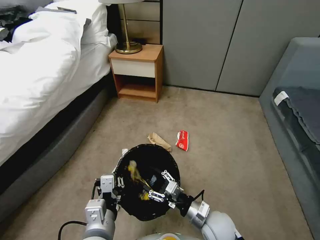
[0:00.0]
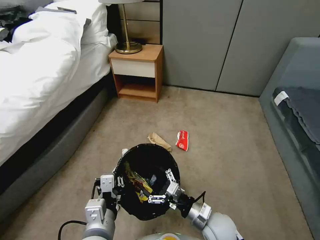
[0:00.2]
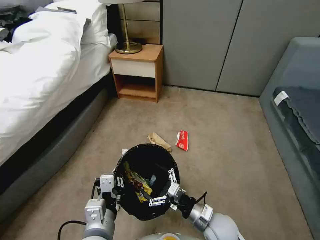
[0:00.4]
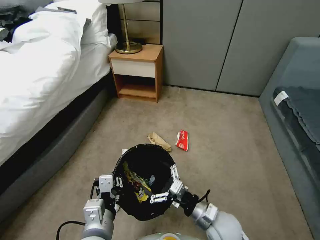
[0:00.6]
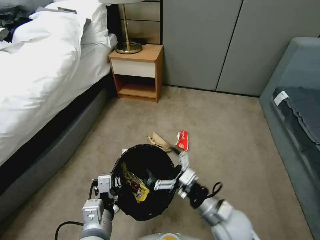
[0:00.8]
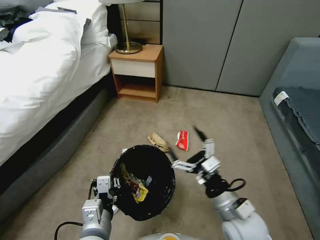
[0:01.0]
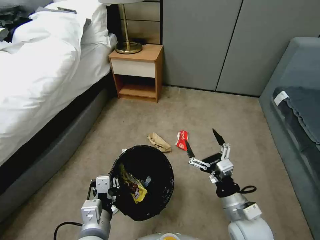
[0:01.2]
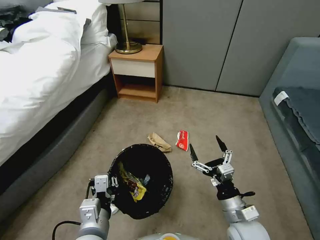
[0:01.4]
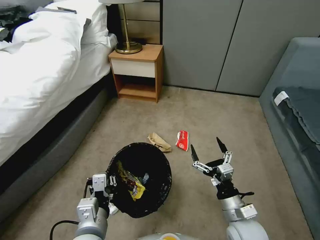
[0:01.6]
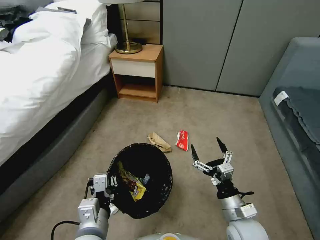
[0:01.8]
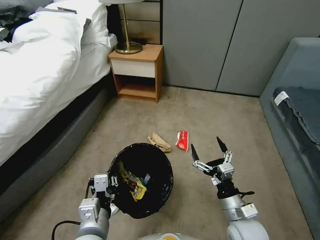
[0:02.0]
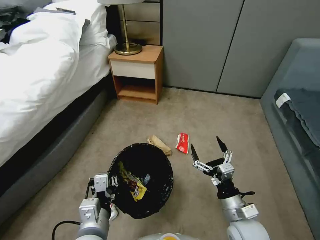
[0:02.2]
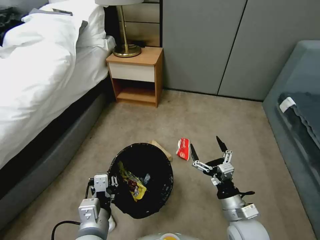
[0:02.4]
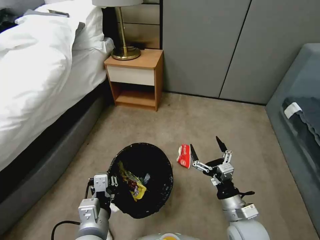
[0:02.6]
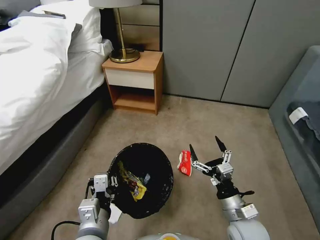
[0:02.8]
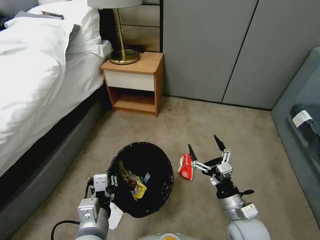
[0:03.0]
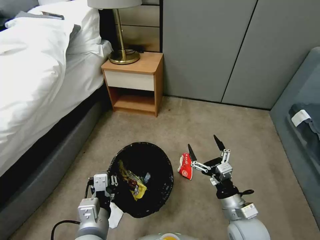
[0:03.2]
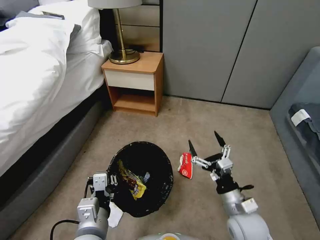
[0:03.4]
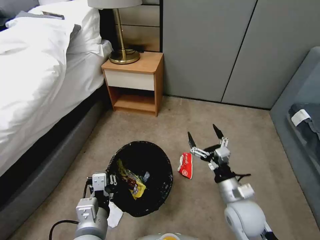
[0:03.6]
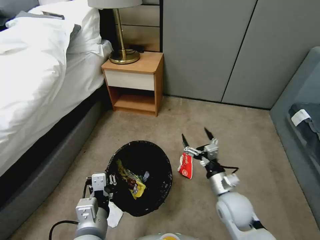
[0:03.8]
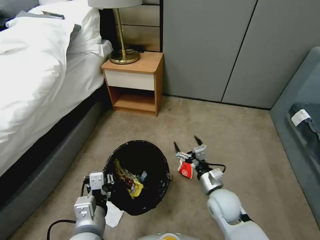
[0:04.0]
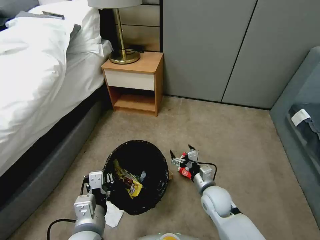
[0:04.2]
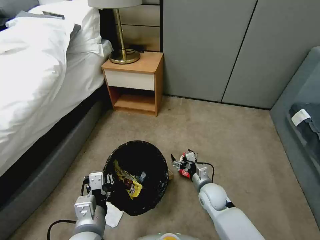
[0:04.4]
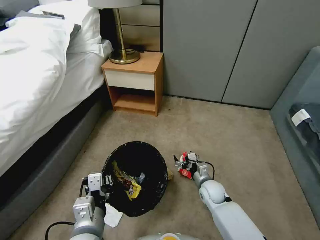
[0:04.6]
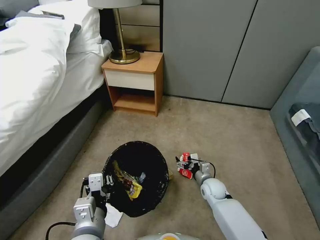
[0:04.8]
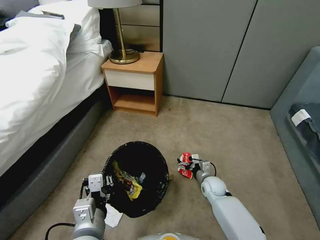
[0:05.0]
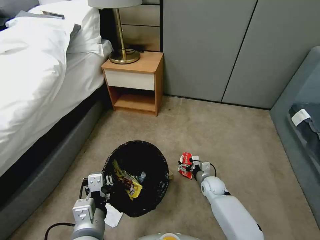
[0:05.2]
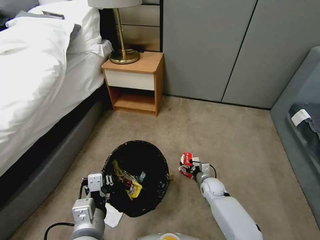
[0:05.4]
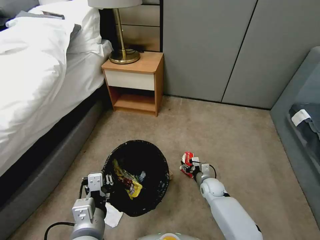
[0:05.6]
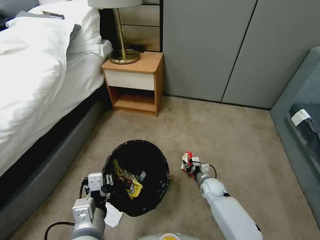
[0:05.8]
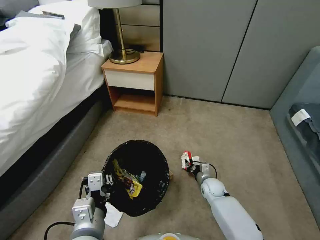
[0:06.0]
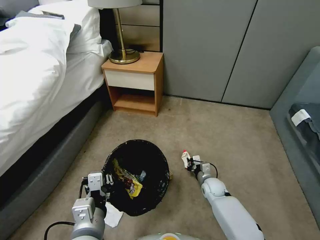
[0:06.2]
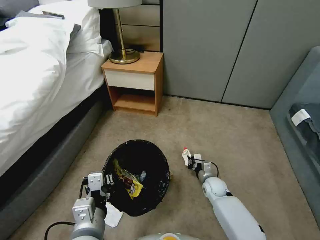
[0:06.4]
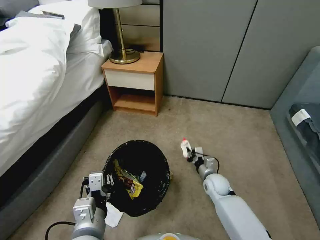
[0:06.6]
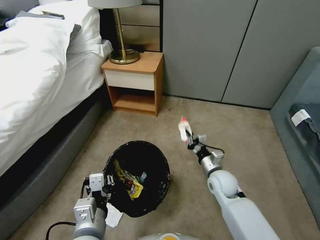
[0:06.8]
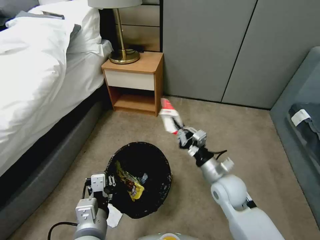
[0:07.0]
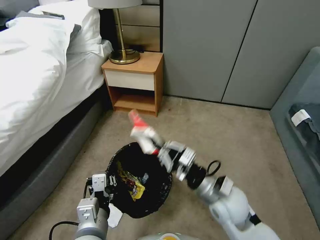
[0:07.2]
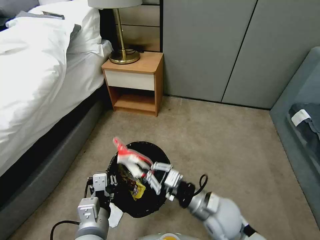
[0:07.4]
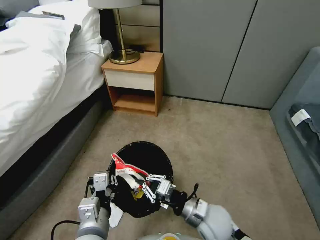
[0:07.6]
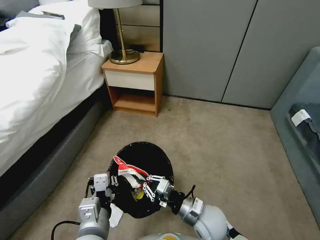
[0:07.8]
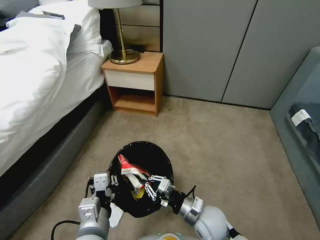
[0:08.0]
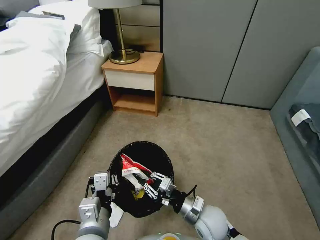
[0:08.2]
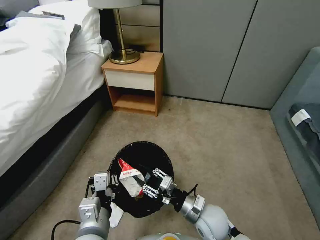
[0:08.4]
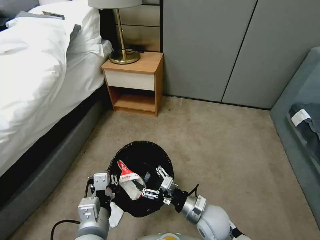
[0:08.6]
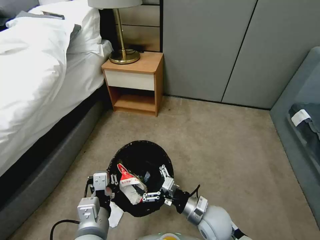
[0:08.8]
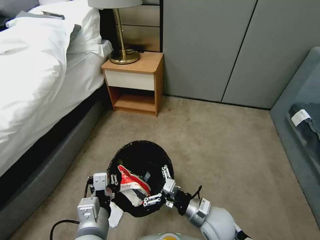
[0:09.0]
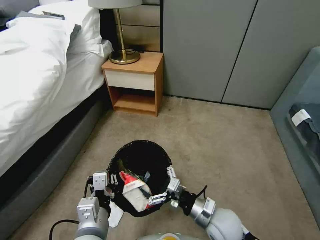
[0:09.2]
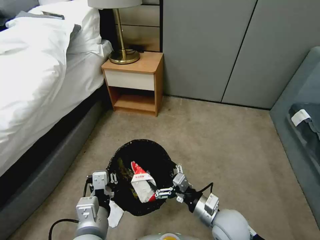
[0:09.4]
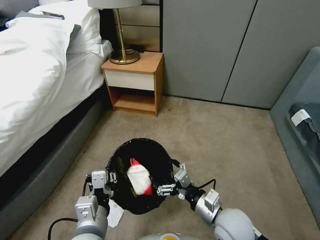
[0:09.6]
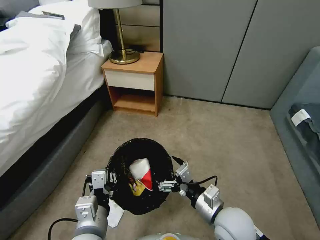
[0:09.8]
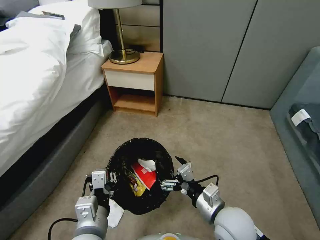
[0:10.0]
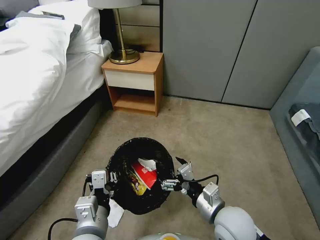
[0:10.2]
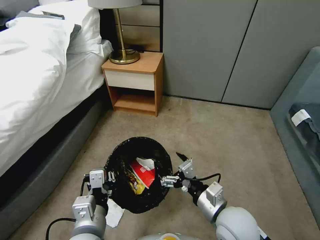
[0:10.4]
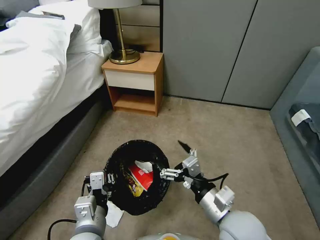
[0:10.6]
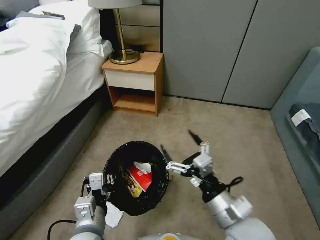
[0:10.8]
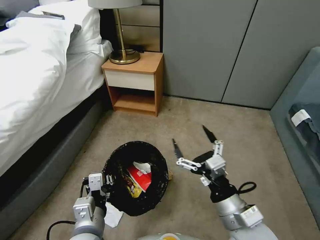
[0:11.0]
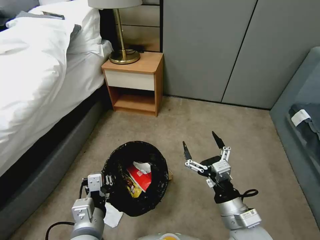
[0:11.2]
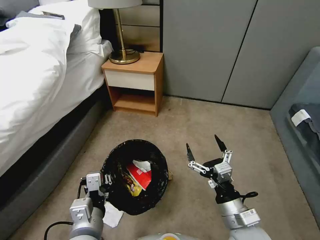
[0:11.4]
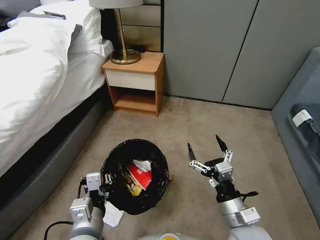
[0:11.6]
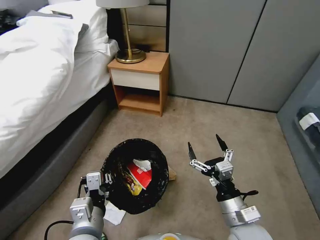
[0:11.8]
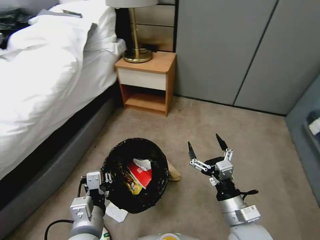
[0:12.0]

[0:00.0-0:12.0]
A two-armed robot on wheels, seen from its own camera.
Task of the whole recording: Pick up the trash bin, then pick up the garbage from the floor and place it into the trash bin.
0:00.0 to 0:01.6: The right gripper heads to the right, covering roughly 5 cm, and opens.
0:03.0 to 0:04.4: The right gripper travels forward and downward by some 15 cm.
0:04.4 to 0:06.0: The right gripper goes roughly 5 cm downward, and closes.
0:06.0 to 0:07.6: The right gripper moves upward, backward and to the left, approximately 25 cm.
0:07.6 to 0:09.0: The right gripper opens up.
0:09.0 to 0:10.4: The right gripper is displaced upward by approximately 10 cm.

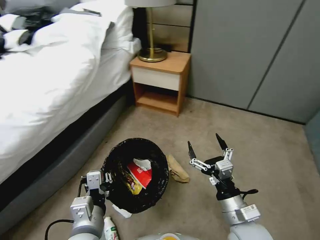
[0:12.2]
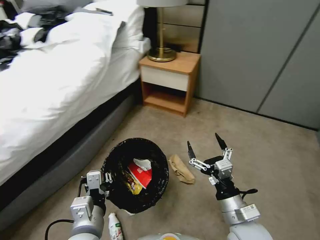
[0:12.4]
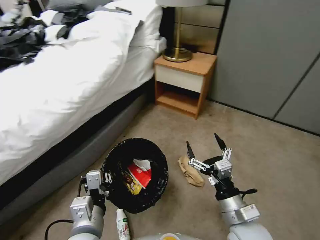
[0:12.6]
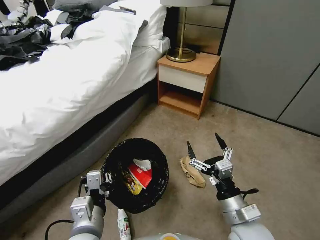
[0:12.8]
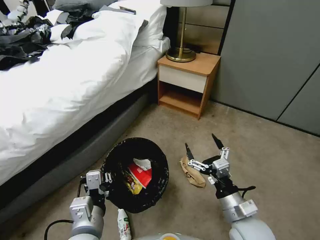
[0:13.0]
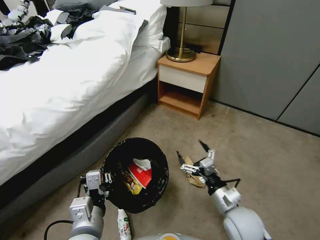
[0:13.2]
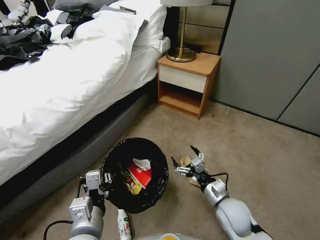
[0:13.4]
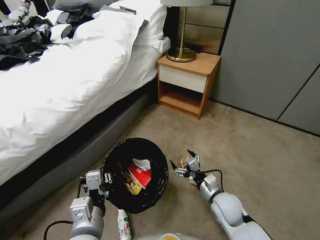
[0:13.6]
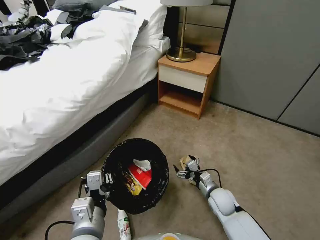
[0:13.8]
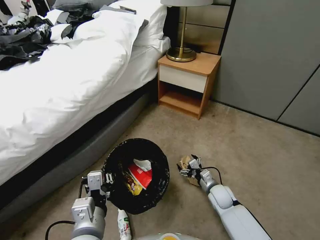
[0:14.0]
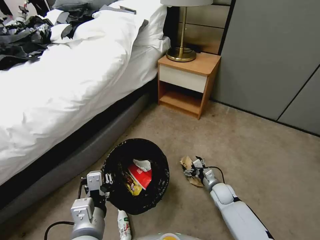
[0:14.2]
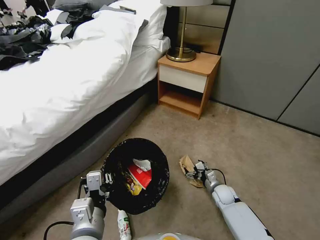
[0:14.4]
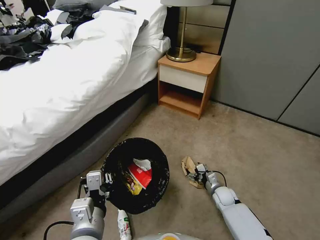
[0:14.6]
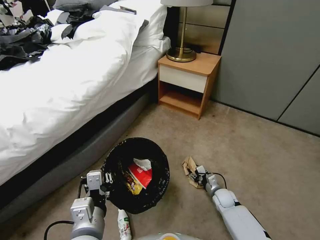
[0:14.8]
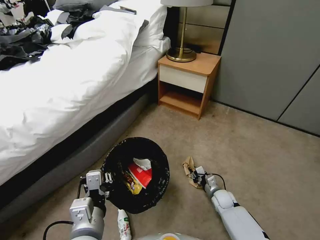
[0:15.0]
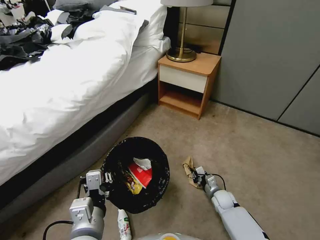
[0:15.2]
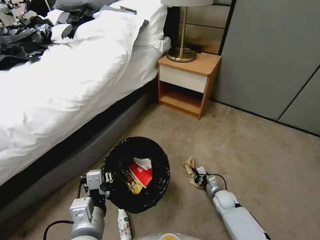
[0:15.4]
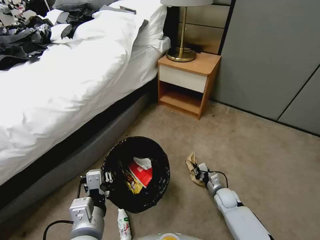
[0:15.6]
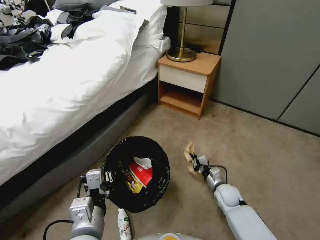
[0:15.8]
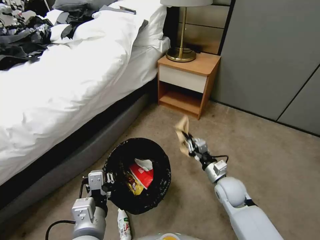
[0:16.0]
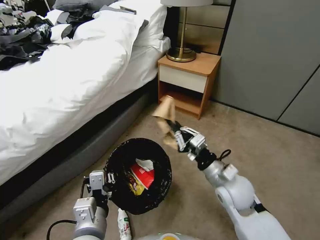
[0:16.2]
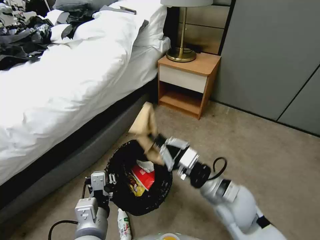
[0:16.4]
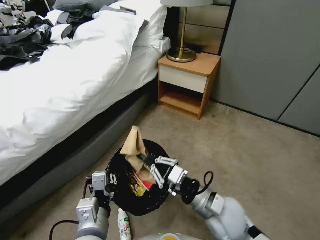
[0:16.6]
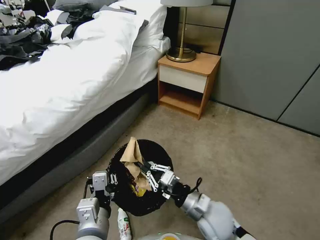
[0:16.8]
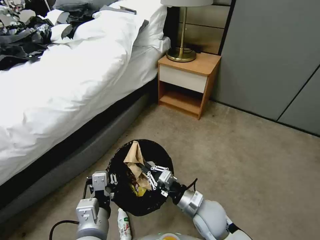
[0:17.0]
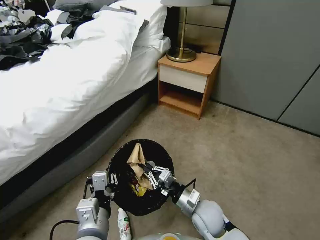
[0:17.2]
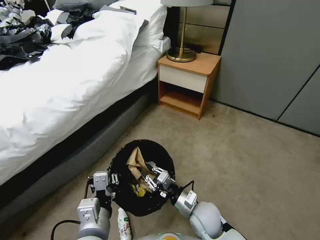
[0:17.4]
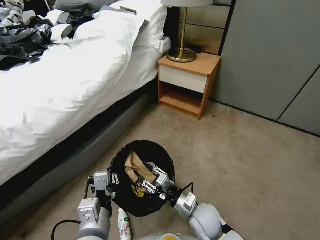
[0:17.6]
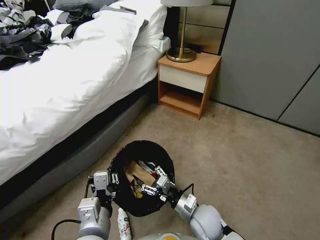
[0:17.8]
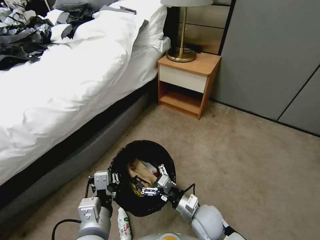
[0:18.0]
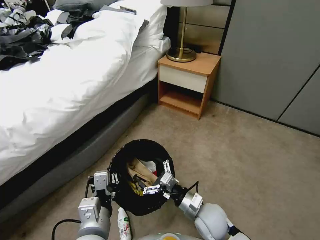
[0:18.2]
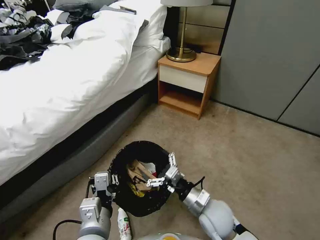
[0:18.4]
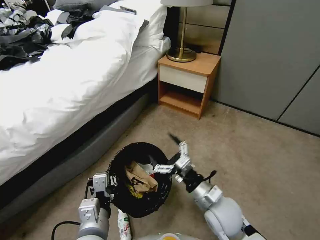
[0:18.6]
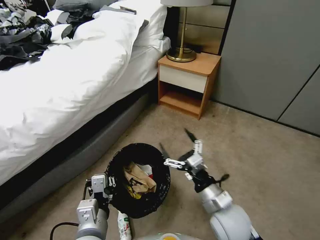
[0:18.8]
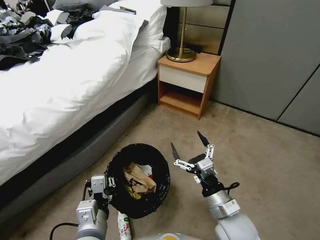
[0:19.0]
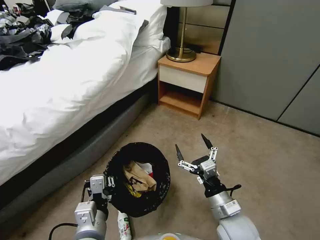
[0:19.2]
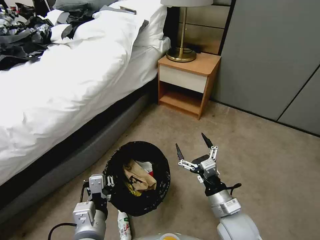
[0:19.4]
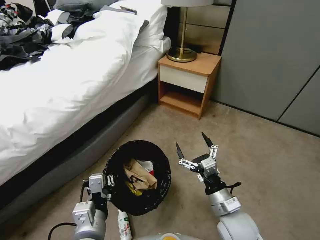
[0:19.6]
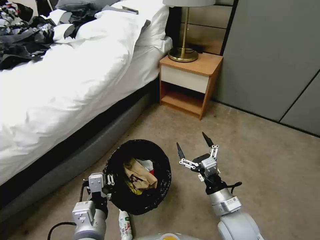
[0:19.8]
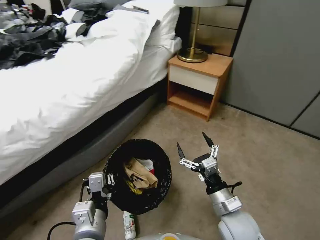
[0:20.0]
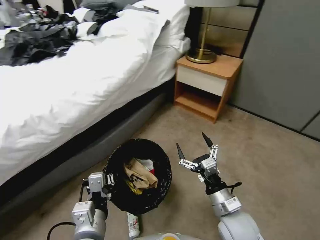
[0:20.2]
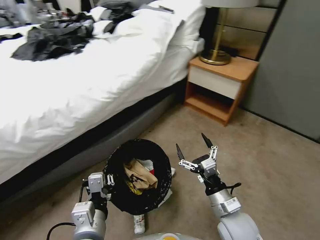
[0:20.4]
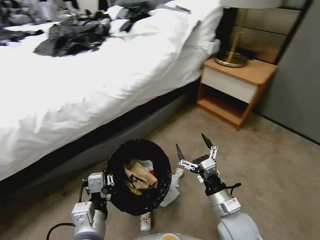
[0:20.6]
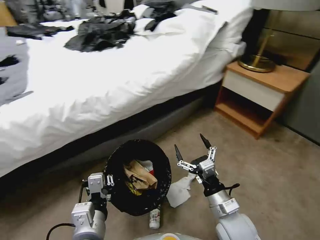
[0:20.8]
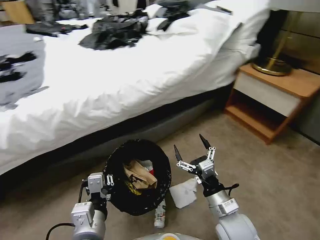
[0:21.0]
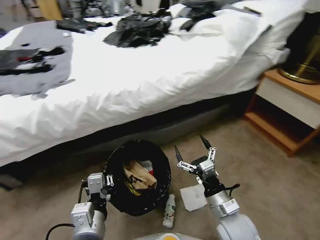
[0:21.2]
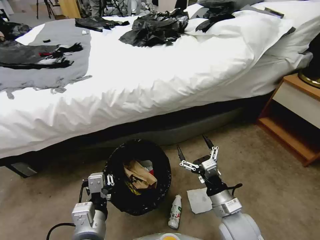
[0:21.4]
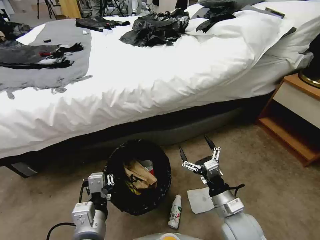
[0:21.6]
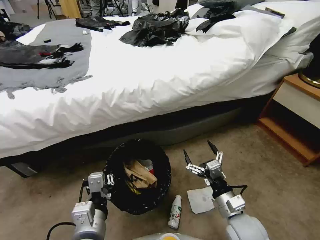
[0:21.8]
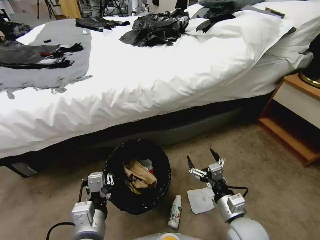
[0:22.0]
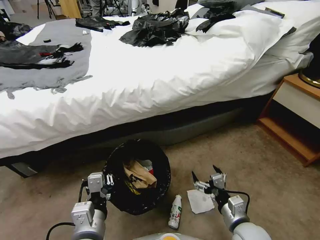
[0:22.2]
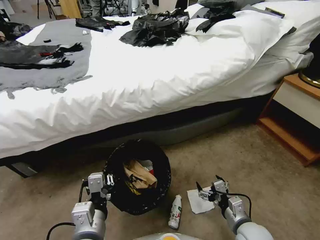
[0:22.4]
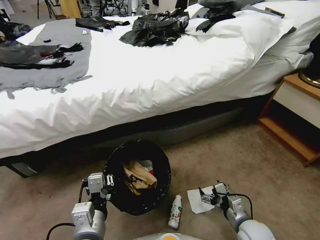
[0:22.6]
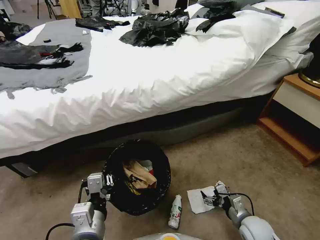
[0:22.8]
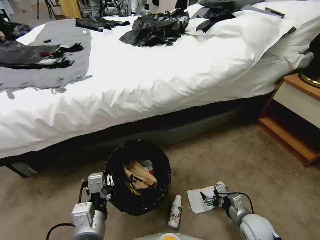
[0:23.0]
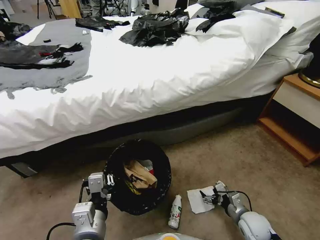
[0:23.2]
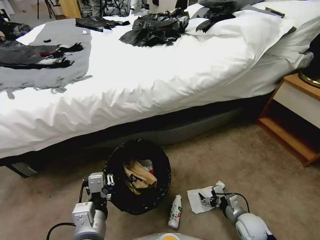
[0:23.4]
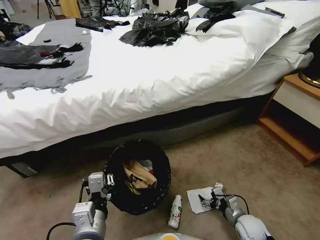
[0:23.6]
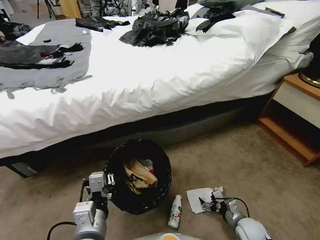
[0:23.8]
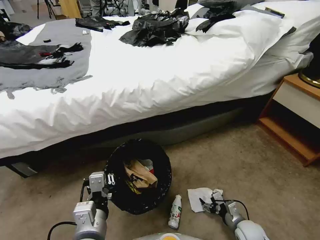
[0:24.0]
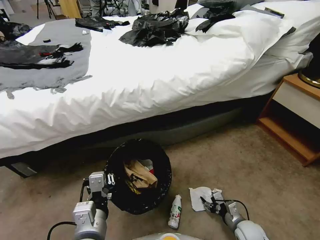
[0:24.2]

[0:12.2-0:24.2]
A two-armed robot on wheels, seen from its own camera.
Task of the whole recording: Pick up the trash bin, then pick up the garbage from the floor and place it into the trash bin.
0:12.2 to 0:13.8: The right gripper heads downward and forward, covering about 20 cm.
0:13.8 to 0:15.2: The right gripper goes about 10 cm downward, and closes.
0:15.2 to 0:16.6: The right gripper moves upward and to the left, about 30 cm.
0:16.6 to 0:18.2: The right gripper moves downward, approximately 10 cm, and opens.
0:18.2 to 0:19.8: The right gripper heads upward and to the right, covering roughly 10 cm.
0:21.2 to 0:22.6: The right gripper moves downward and to the right, about 15 cm.
0:22.6 to 0:24.2: The right gripper heads downward, covering roughly 10 cm.
